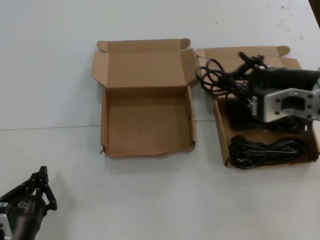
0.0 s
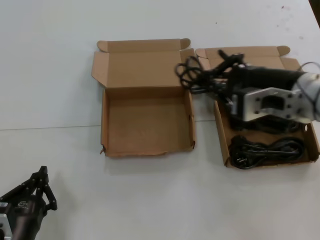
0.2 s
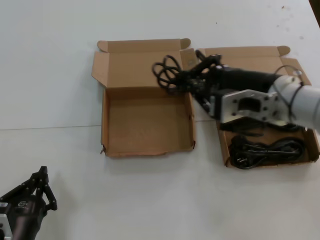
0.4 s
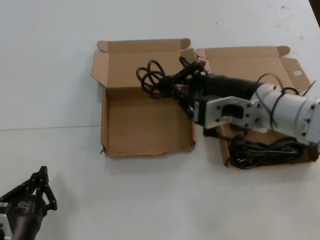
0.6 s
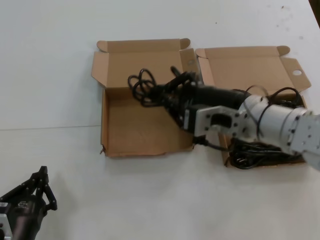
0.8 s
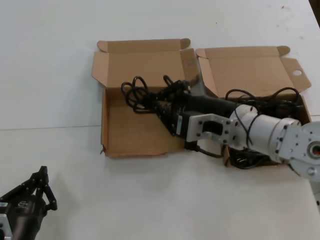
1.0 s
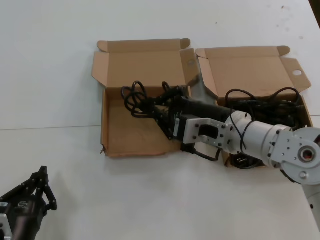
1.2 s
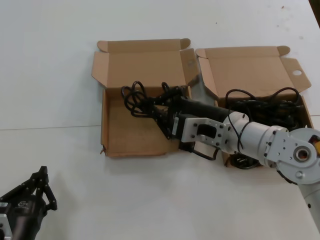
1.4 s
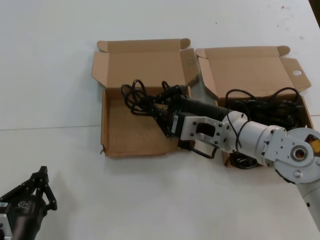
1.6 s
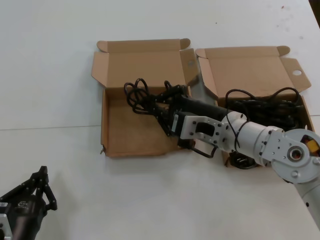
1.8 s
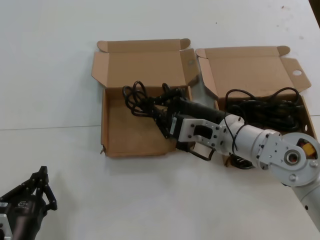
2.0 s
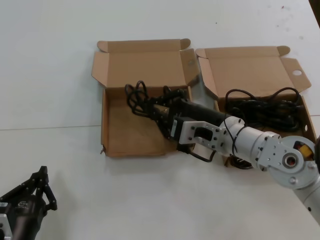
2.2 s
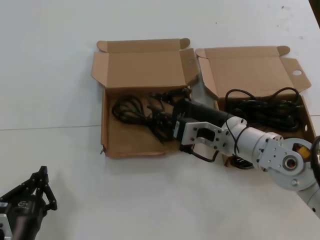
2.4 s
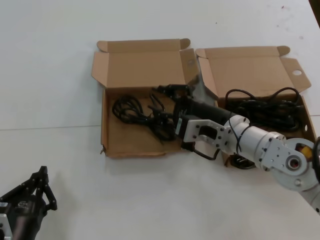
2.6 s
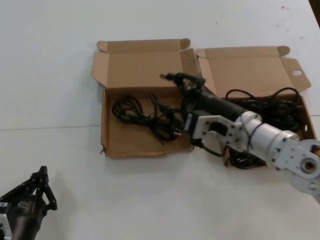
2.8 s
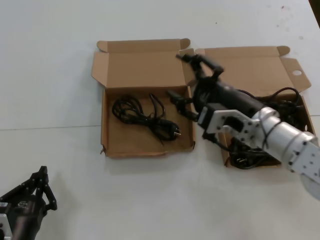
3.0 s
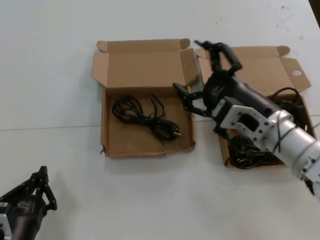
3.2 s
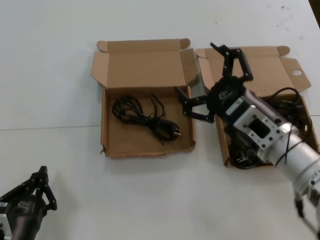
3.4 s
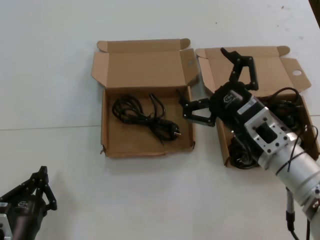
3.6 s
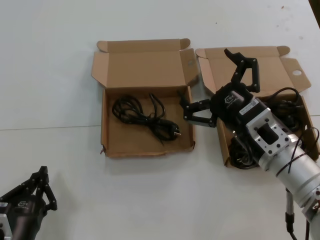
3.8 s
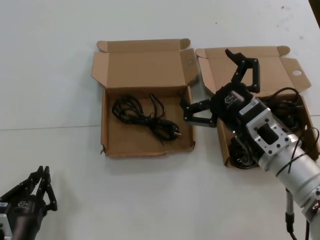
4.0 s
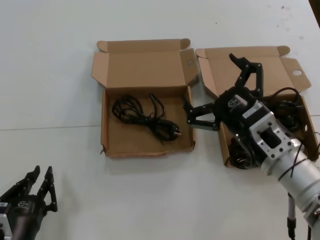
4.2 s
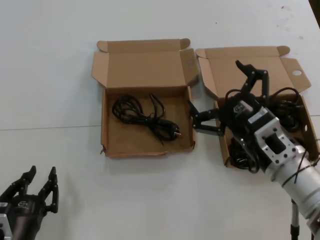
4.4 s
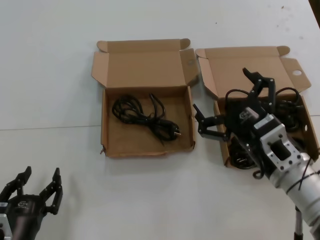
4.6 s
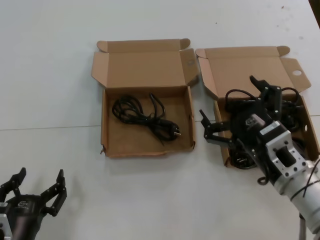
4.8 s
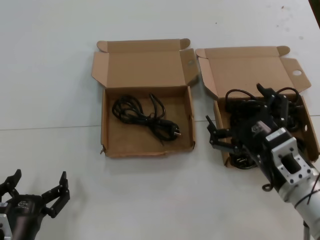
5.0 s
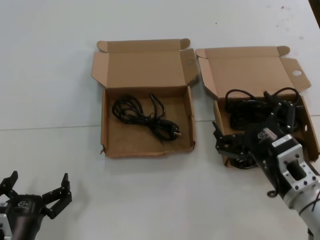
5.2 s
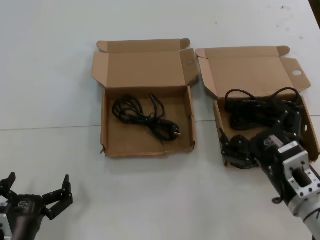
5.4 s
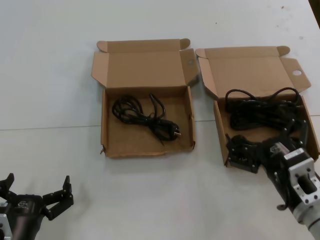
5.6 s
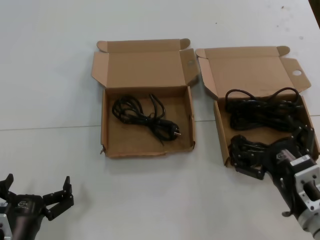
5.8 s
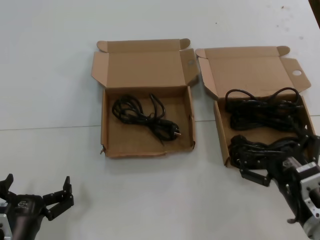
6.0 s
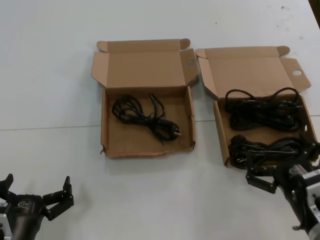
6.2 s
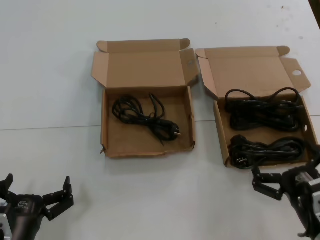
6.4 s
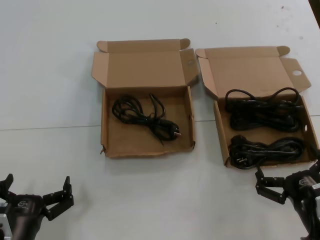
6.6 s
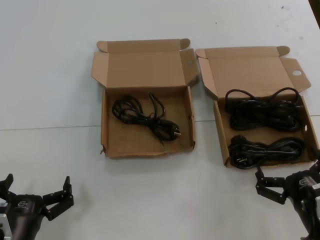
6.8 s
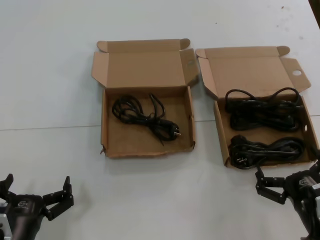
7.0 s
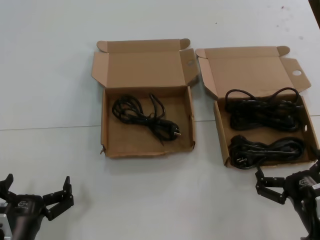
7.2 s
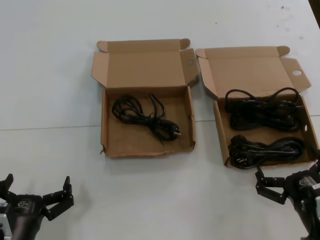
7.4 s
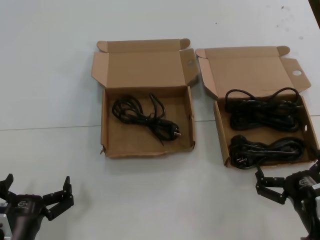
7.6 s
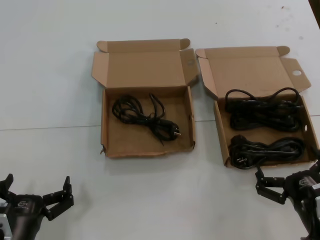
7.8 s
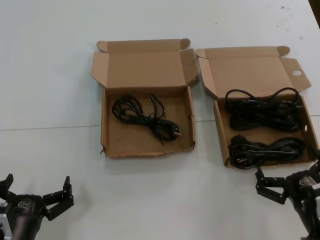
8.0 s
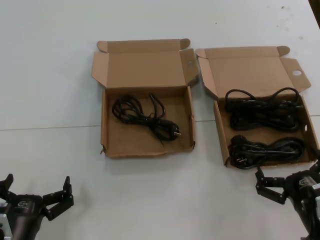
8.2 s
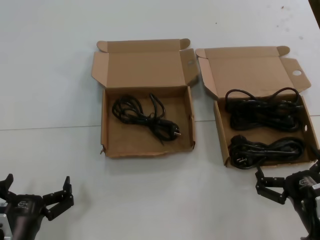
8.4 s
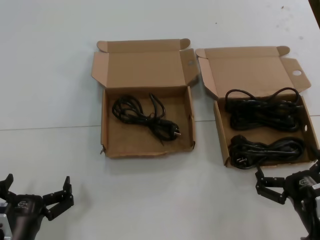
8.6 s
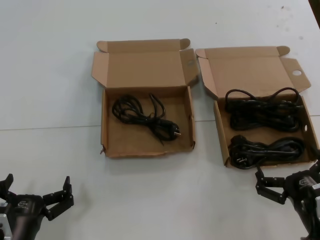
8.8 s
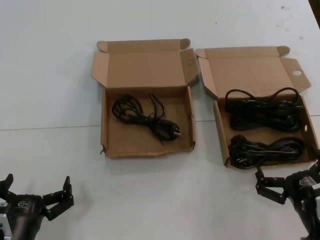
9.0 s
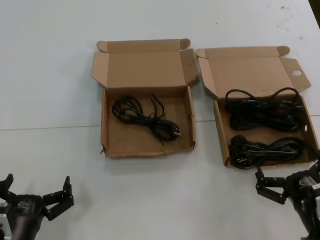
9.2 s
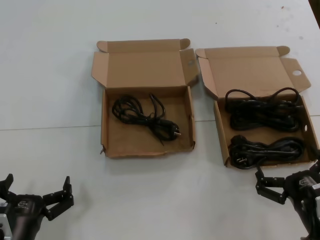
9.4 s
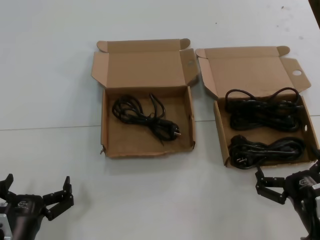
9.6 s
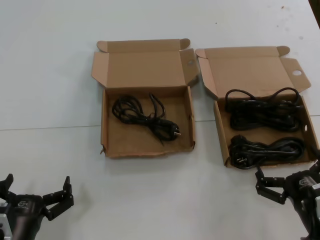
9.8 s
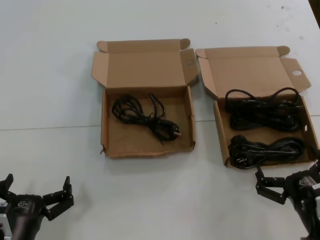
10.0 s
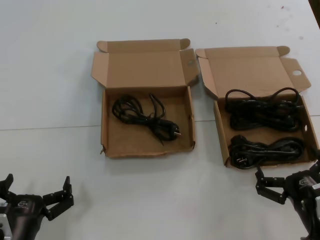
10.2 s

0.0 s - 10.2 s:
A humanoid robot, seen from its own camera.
Task of the whole recording: take the parts from the box containing them and put them into an empty box.
Step, 0.0 s - 2.4 s: Place the data cable in the another box.
0.0 s - 1.4 s: The right hand moves to the left and downward, roughly 15 cm.
1.4 s - 3.0 s: There are only small adjustments of the hands.
3.0 s - 4.4 s: The right hand travels backward by some 5 cm.
4.4 s - 5.8 s: The right hand goes approximately 5 cm downward.
5.8 s - 7.2 s: The right hand changes place by approximately 5 cm.
7.2 s - 10.2 s: Both hands stay put.

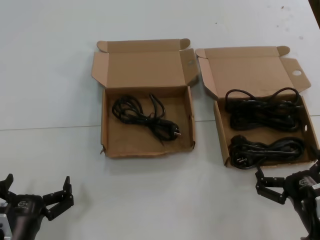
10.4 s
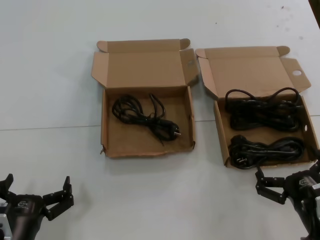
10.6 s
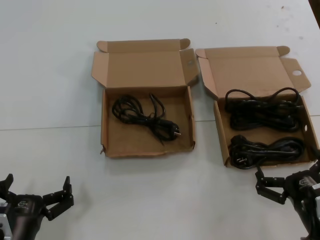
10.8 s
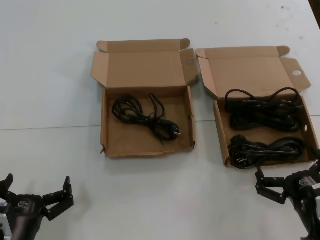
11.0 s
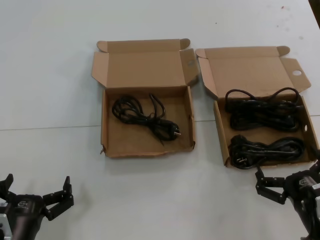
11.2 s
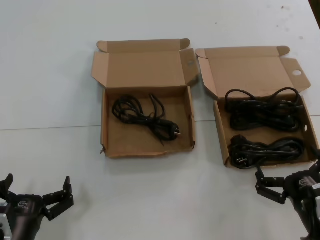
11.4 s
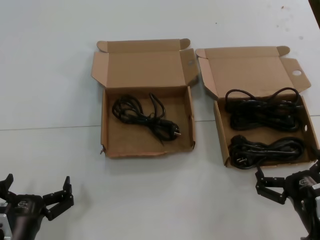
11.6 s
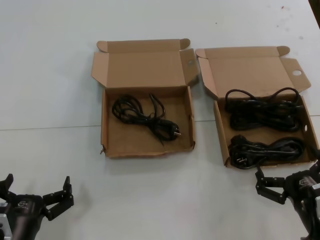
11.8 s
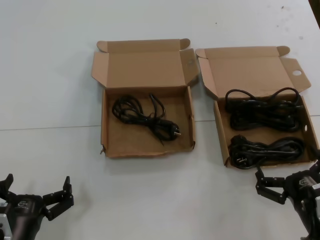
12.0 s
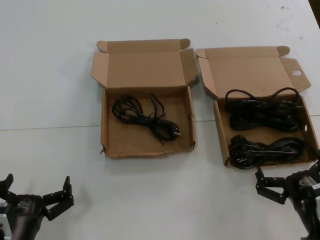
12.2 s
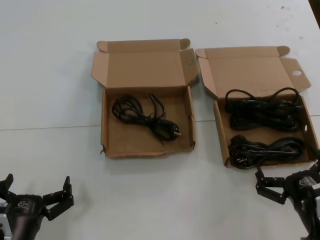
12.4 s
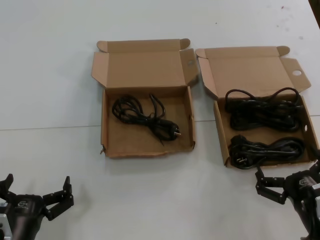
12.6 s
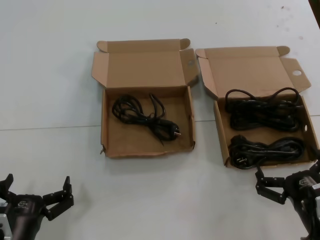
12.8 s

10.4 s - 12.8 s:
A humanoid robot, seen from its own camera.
Task of the whole recording: take the parts from the box containing them and put them into an empty box.
10.4 s - 12.8 s: Neither hand changes place.

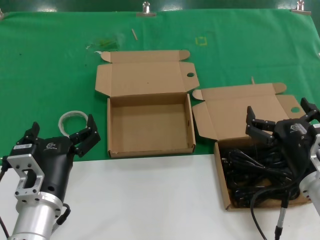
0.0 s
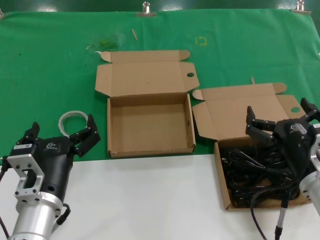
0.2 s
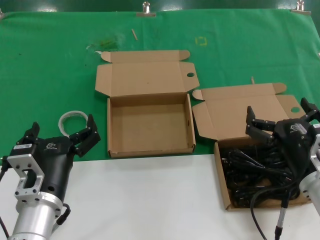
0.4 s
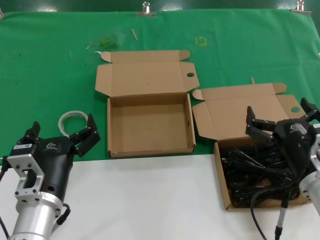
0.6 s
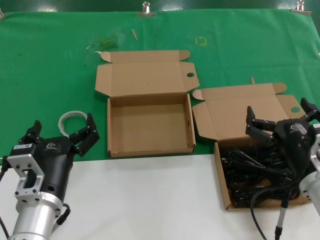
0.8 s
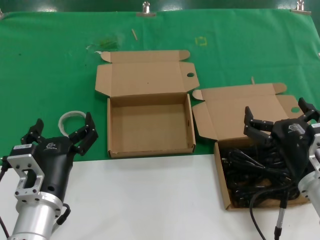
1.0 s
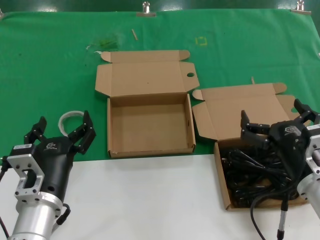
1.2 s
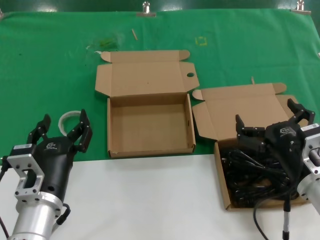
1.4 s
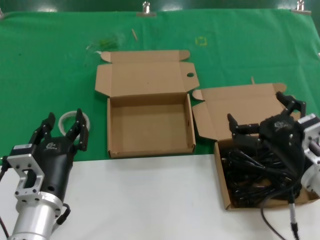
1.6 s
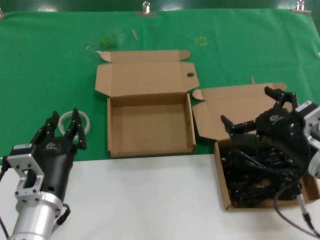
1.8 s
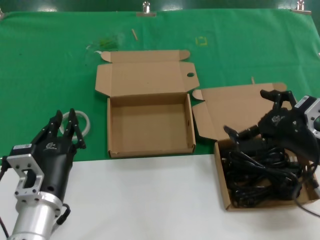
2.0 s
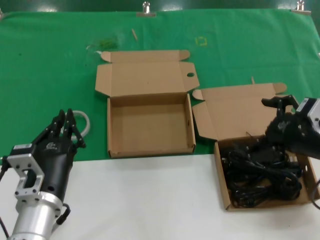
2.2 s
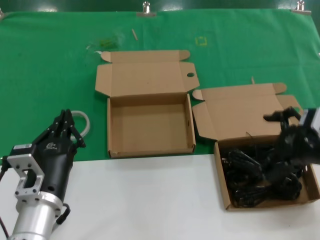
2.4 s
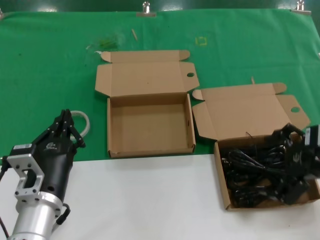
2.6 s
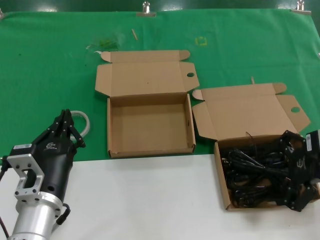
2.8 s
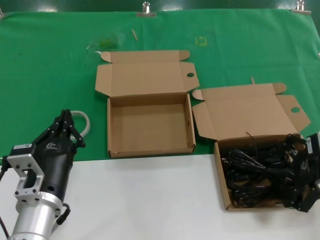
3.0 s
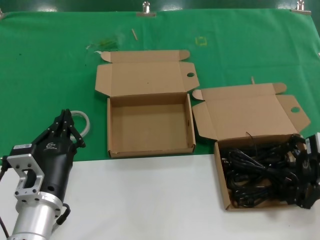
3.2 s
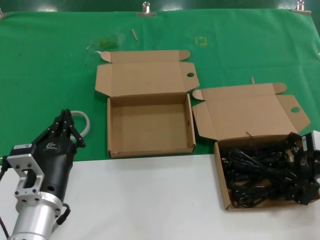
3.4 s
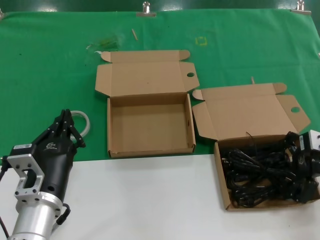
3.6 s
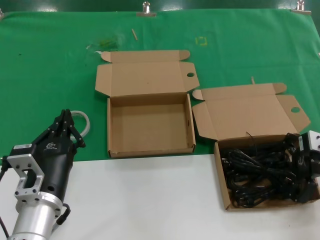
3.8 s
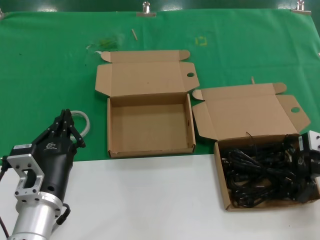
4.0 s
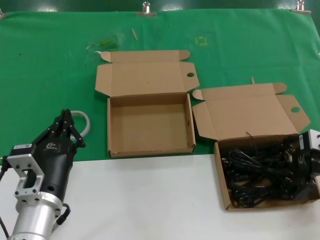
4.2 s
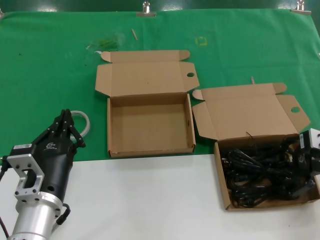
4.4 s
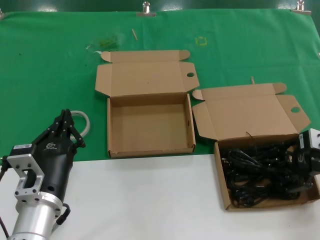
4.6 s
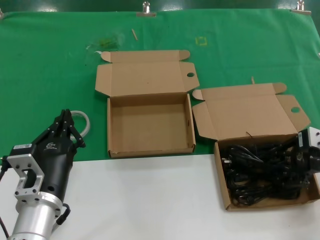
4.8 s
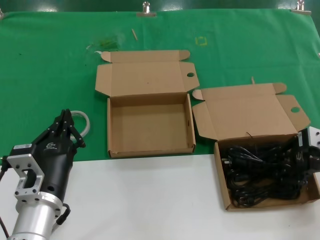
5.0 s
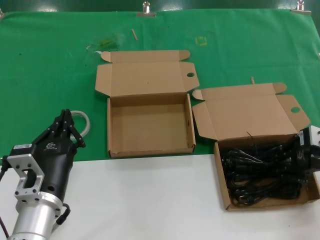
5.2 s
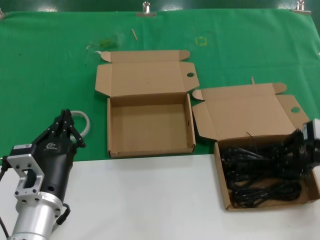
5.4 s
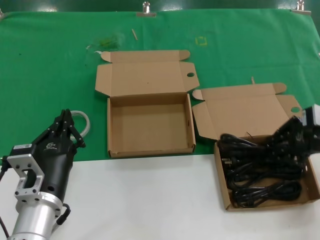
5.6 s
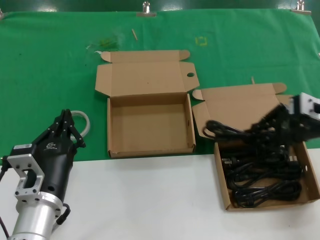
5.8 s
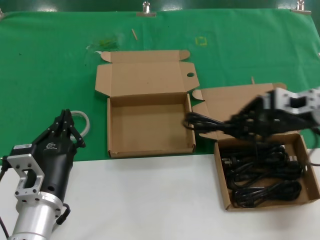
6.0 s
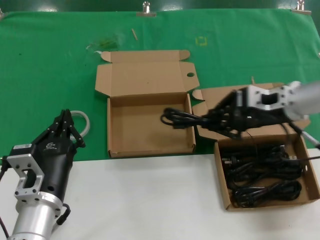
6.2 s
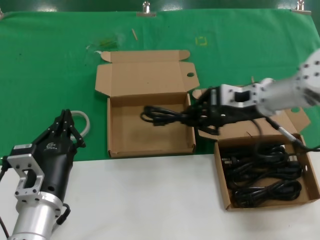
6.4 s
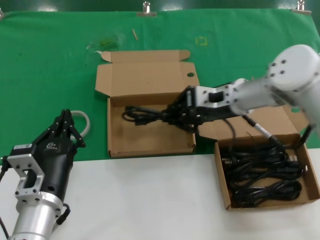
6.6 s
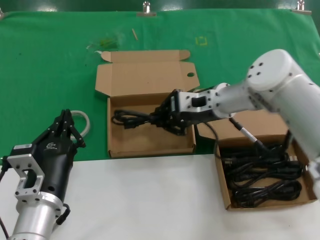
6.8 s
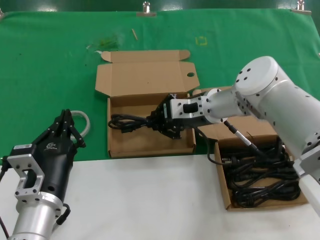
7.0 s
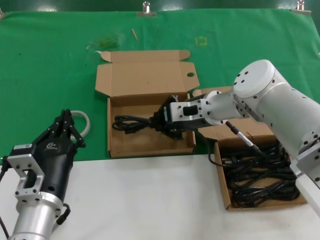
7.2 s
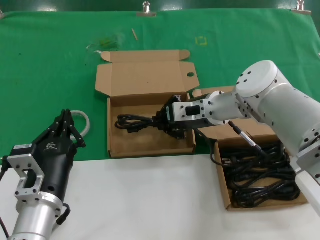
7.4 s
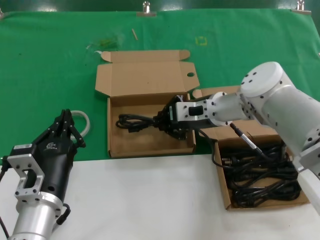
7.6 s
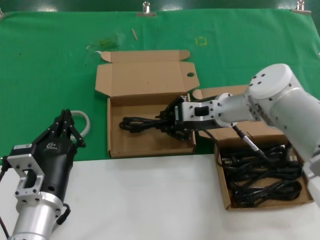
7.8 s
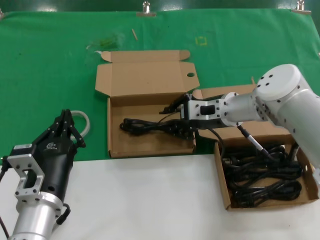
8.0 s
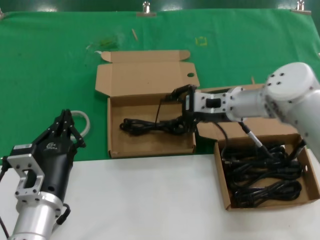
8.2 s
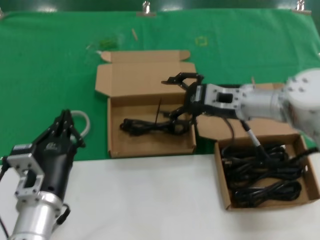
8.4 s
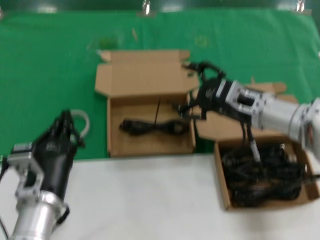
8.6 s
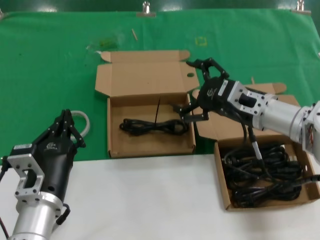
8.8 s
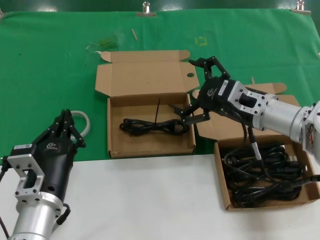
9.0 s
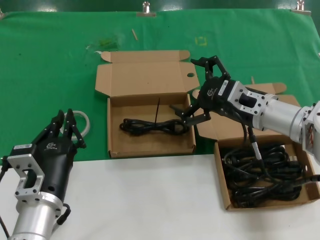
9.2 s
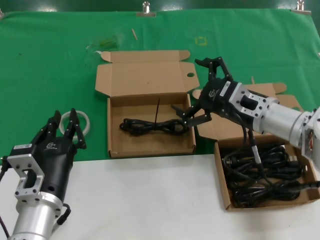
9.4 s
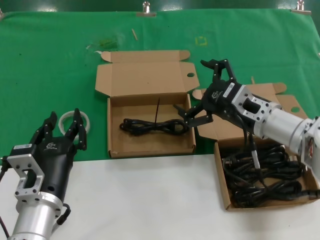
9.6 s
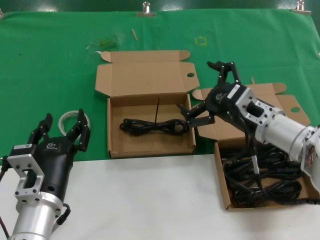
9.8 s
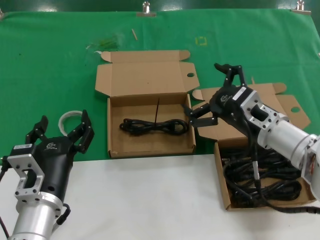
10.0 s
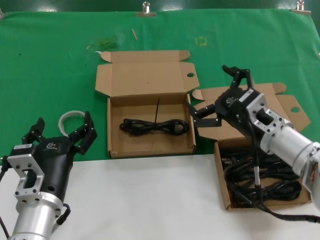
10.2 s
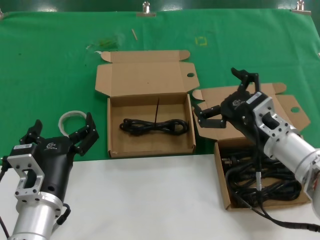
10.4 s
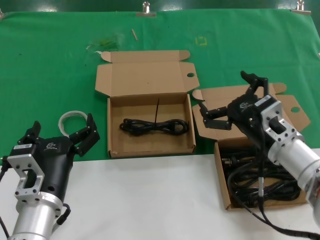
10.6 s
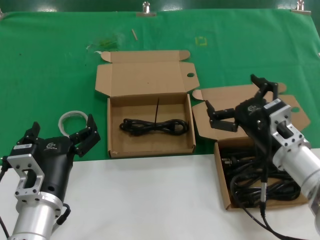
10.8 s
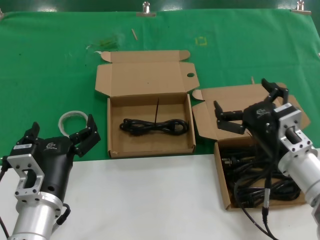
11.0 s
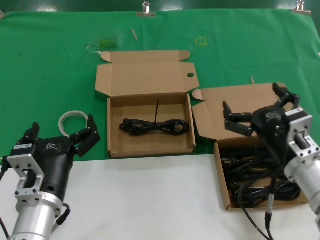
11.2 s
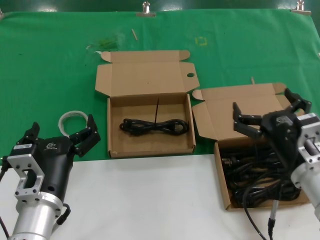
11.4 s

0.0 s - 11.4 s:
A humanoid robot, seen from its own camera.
Task of the whole recording: take the parts from the box containing them and put them into an empty box.
Step, 0.0 s - 5.2 s: Grasp the data cable.
Step, 5.4 s - 7.8 s: Place the data cable in the another box.
0.0 s - 1.4 s: The hands move only a little.
1.4 s - 2.8 s: The right hand goes some 15 cm upward, to the right and forward.
2.8 s - 4.2 s: The right hand moves forward, about 5 cm.
4.2 s - 5.6 s: The hands make only small movements.
5.6 s - 7.2 s: The right hand travels to the left and forward by approximately 25 cm.
7.2 s - 8.6 s: The right hand moves to the right and backward, about 10 cm.
8.6 s - 10.0 s: The right hand shifts by approximately 5 cm.
10.0 s - 11.4 s: The right hand heads backward, covering about 10 cm.
